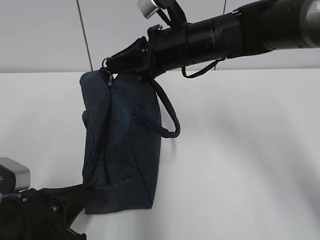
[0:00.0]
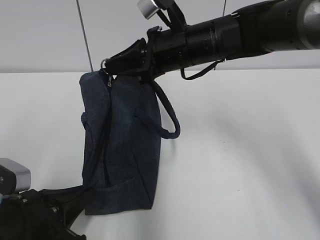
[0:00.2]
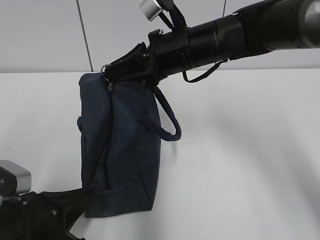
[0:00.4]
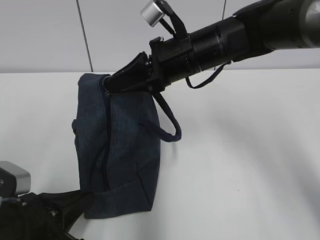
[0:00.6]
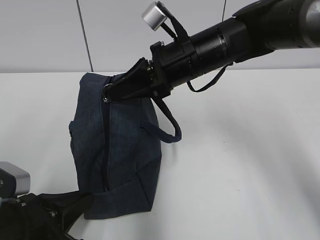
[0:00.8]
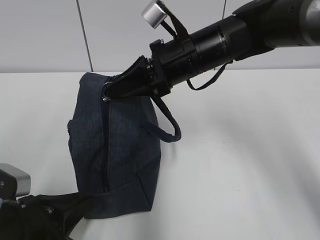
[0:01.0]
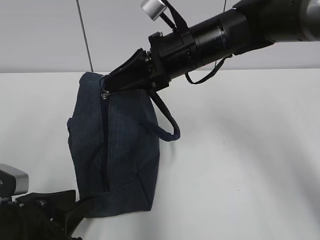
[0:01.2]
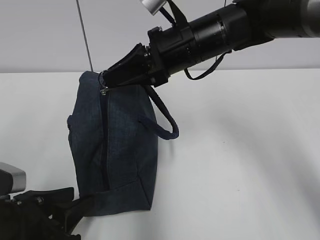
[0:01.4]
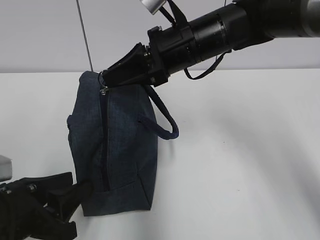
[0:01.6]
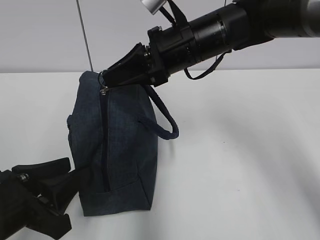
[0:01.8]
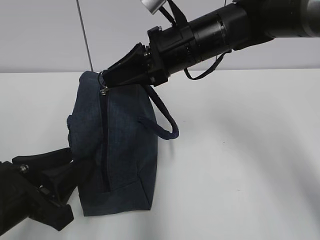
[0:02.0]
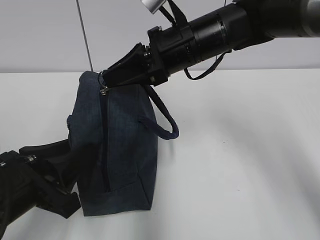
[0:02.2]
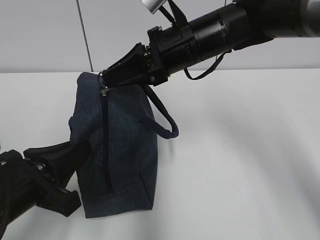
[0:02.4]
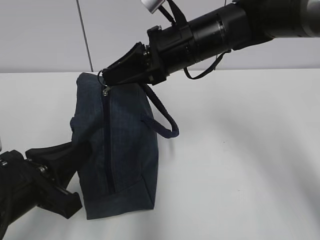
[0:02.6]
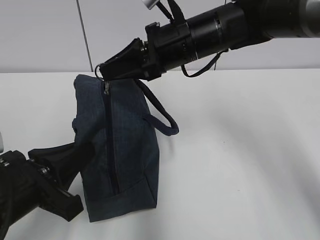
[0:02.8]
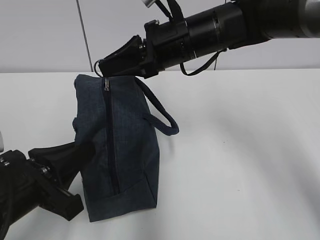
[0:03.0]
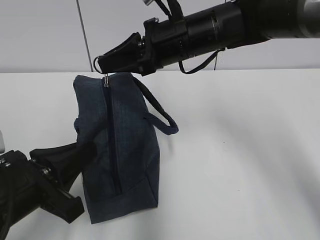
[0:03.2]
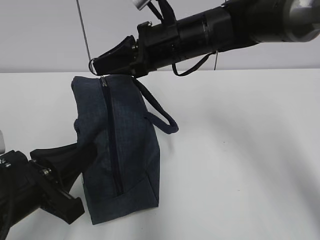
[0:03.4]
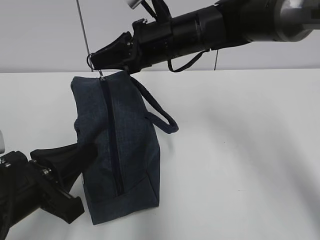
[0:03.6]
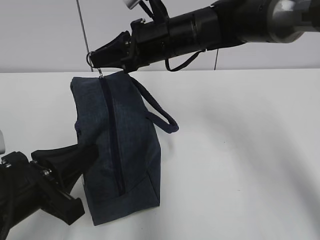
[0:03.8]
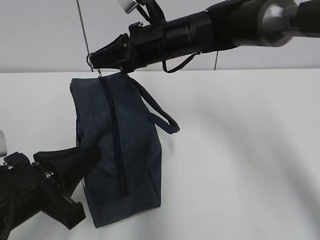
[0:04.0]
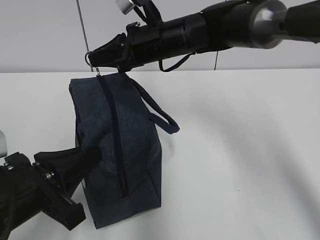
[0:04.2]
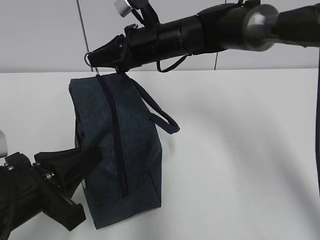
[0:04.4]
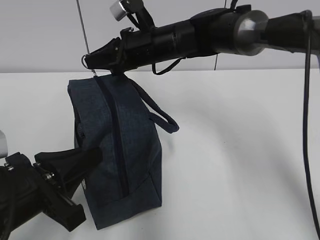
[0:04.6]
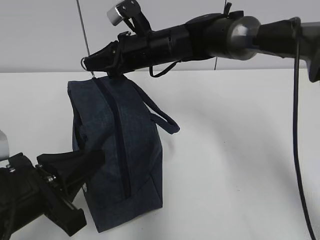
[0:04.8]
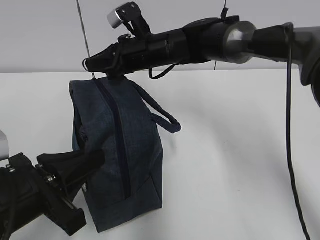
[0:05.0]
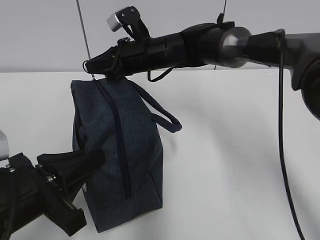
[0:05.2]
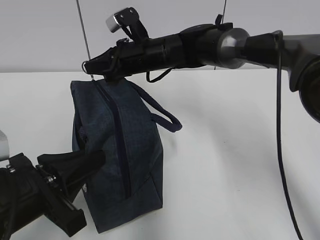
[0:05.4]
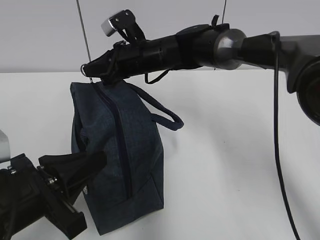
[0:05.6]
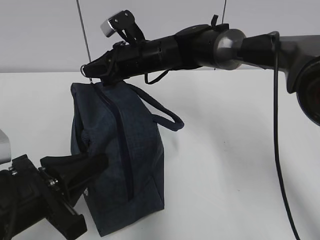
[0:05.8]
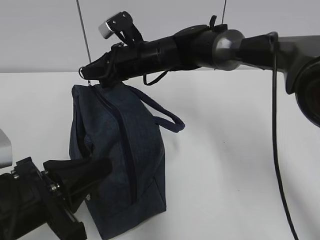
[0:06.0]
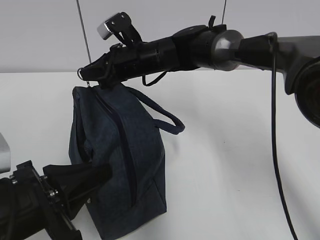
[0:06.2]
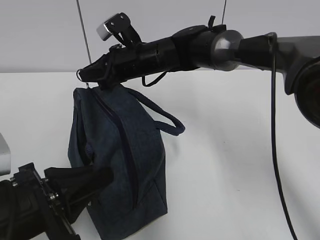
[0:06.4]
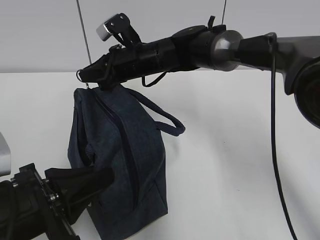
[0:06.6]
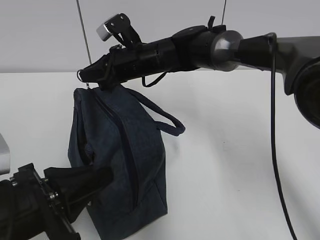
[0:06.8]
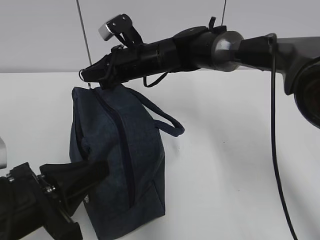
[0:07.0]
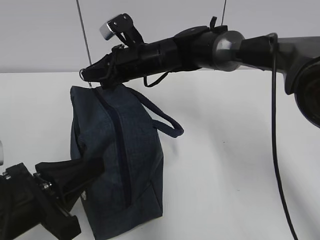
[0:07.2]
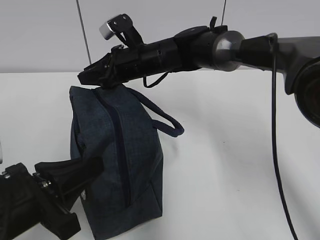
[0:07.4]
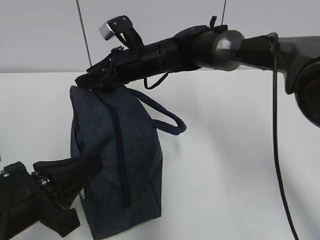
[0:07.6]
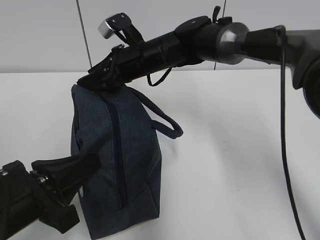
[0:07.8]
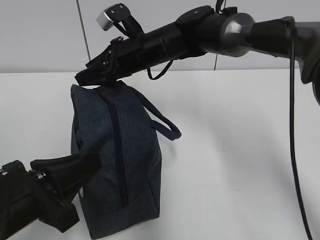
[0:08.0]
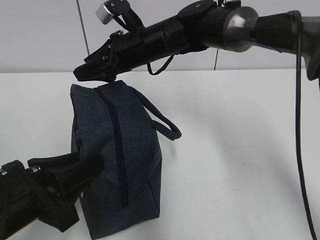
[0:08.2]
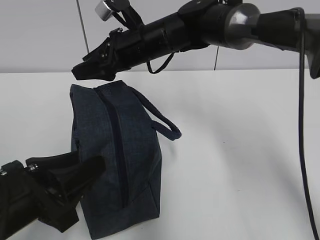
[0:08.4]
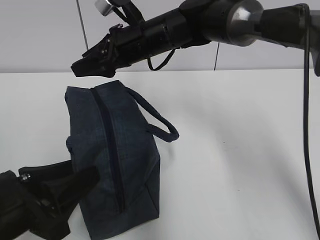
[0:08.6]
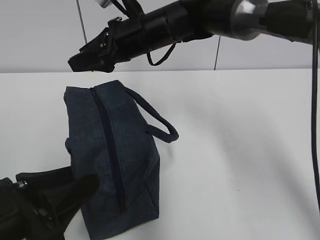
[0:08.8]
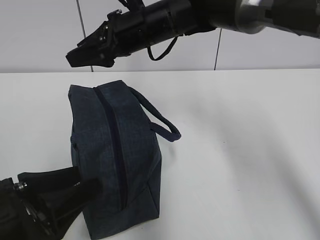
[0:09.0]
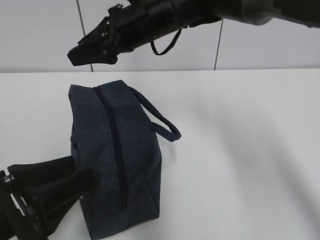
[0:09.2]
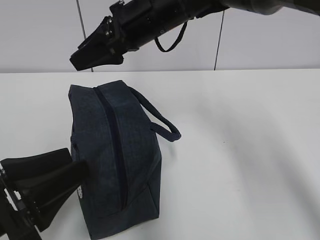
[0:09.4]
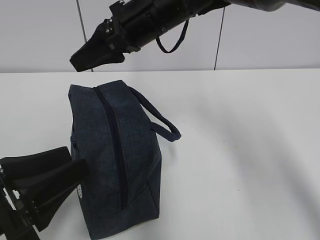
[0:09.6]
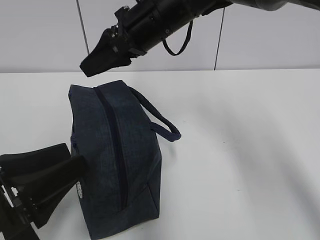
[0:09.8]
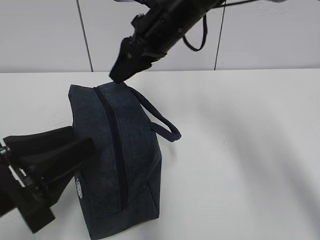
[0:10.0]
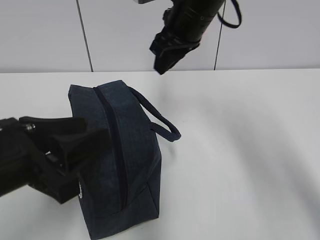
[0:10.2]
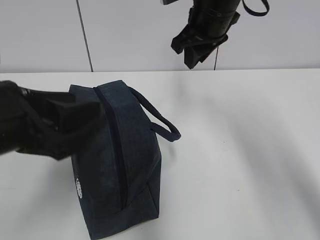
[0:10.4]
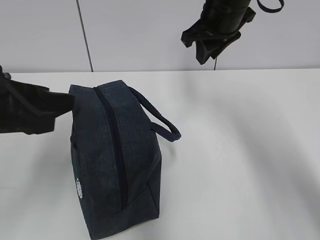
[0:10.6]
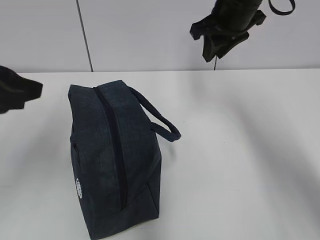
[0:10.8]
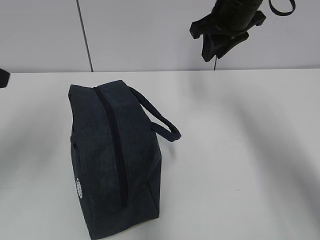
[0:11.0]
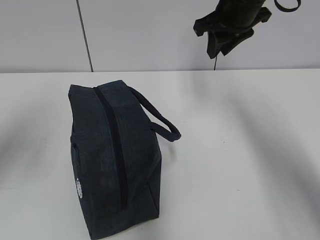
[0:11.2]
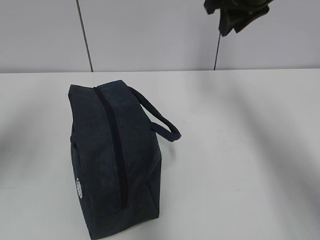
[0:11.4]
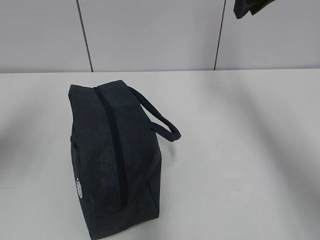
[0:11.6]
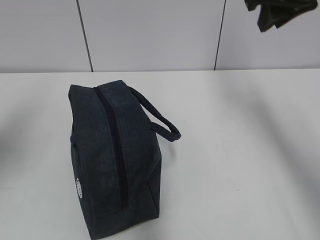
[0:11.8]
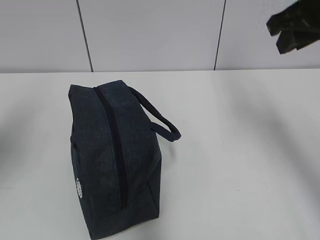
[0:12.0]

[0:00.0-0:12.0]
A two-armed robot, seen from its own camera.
Step, 0:00.0 to 0:07.6: Pull the zipper with your right hand.
0:00.0 to 0:01.6: The left gripper opens its fingers.
0:01.6 to 0:03.0: The left gripper closes its fingers.
0:03.0 to 0:04.4: The right gripper goes roughly 5 cm forward.
0:04.4 to 0:06.0: The right gripper moves about 5 cm.
0:06.0 to 0:07.6: The right gripper opens its fingers.
0:07.6 to 0:09.0: The left gripper opens, while the right gripper travels upward by approximately 10 cm.
0:09.0 to 0:10.4: The left gripper moves upward, roughly 10 cm. The right gripper goes approximately 10 cm to the right, and closes its fingers.
0:10.4 to 0:12.0: The right gripper is displaced to the right and backward by approximately 15 cm. Meanwhile the left gripper shifts about 15 cm to the left and upward.

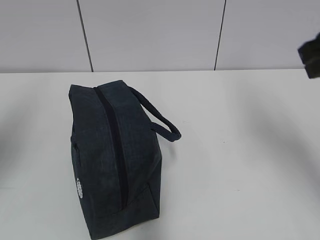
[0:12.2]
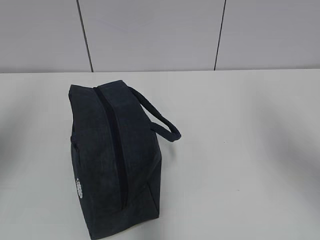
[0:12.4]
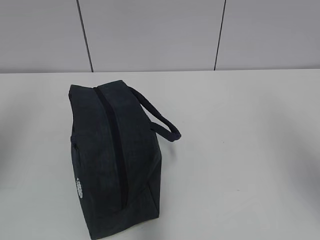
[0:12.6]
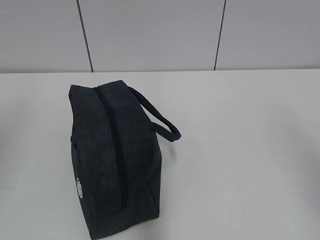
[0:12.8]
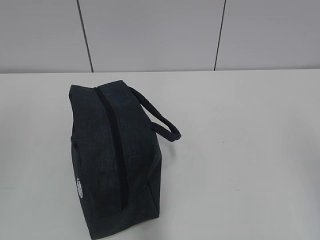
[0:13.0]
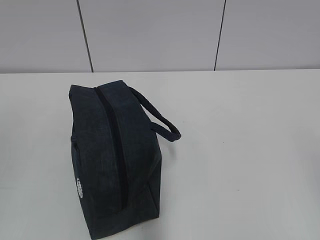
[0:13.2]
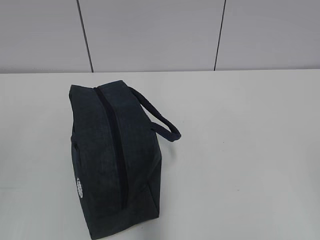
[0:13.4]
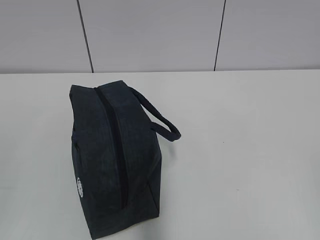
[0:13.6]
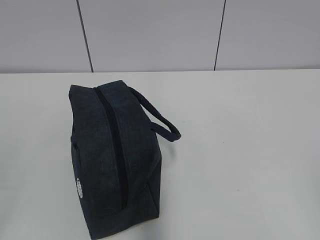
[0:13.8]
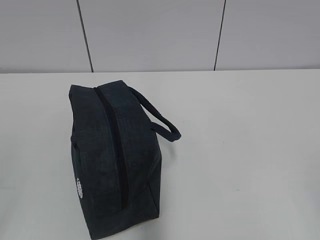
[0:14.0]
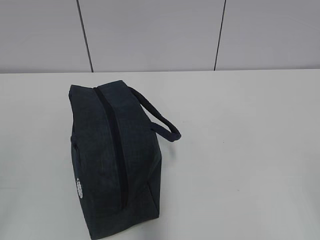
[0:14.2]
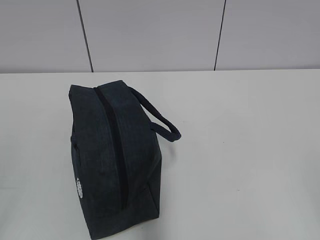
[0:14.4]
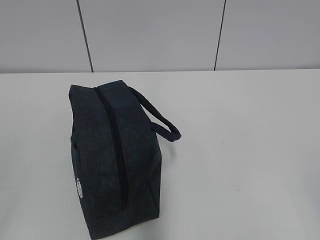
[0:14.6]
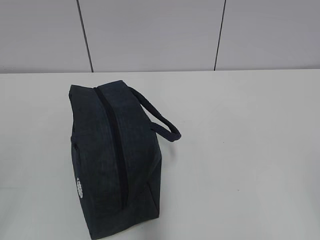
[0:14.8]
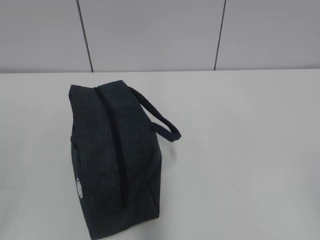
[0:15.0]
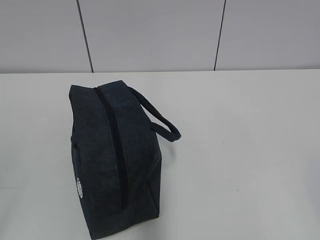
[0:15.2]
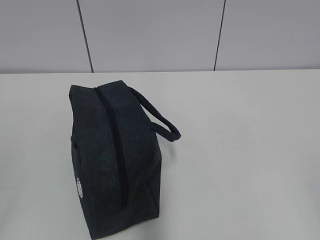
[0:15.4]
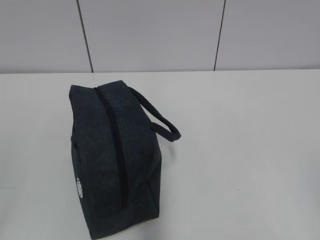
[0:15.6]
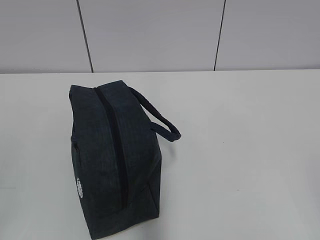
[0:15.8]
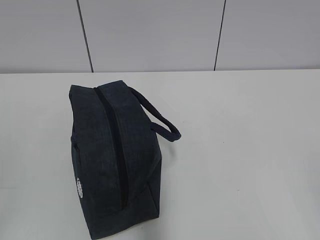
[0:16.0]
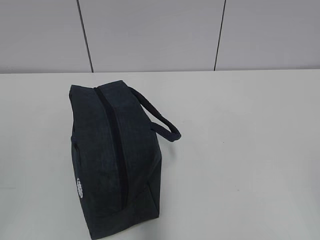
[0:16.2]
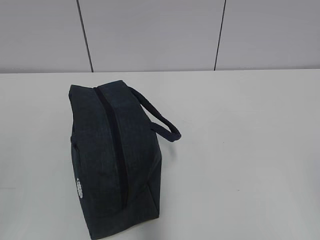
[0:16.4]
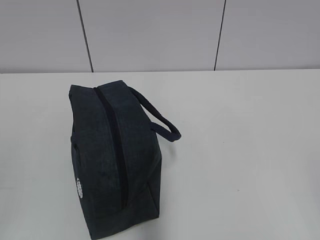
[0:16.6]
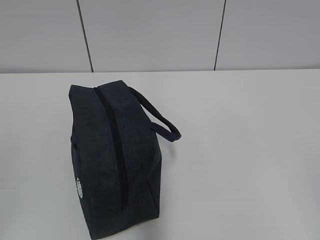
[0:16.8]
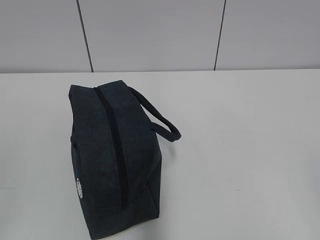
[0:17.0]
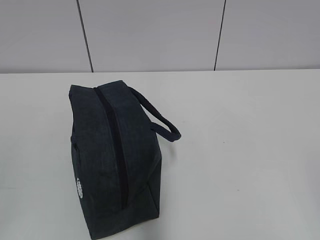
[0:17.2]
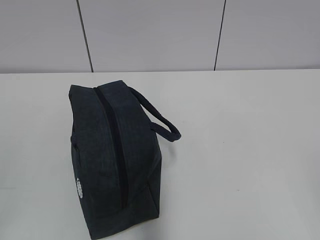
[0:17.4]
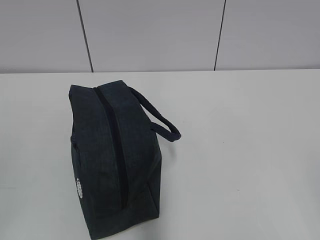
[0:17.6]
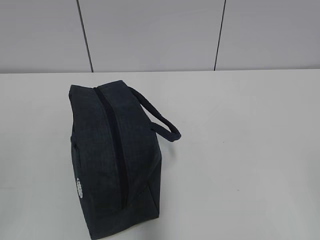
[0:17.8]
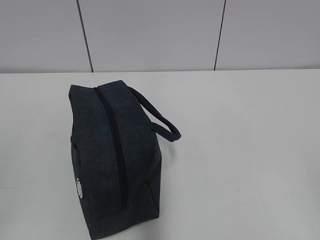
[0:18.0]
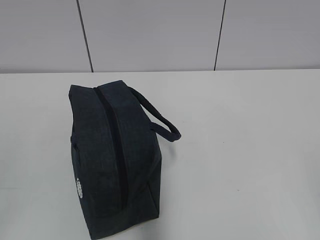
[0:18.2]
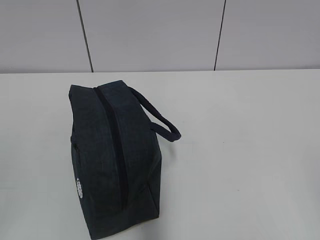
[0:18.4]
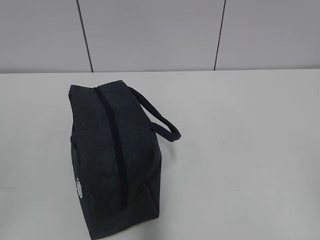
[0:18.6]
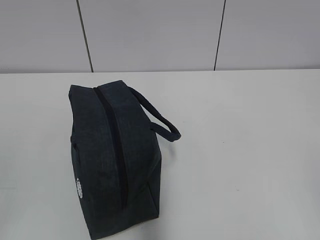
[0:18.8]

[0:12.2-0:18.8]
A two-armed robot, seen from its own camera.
0:12.2 to 0:13.8: The right gripper goes roughly 30 cm backward.
0:17.2 to 0:18.8: The two grippers keep their place.
